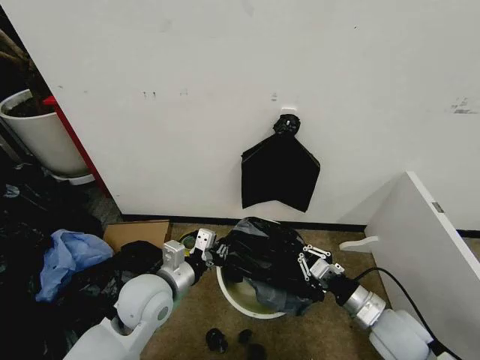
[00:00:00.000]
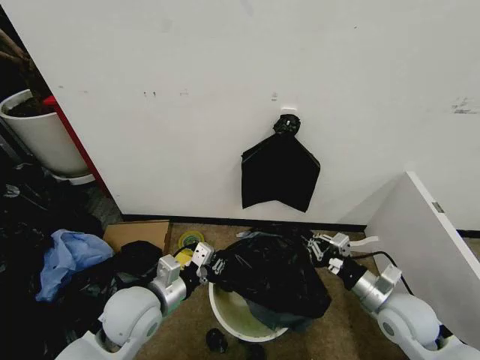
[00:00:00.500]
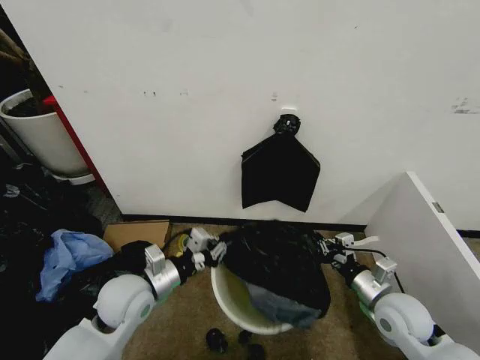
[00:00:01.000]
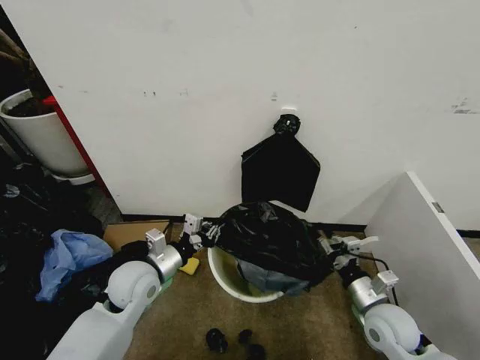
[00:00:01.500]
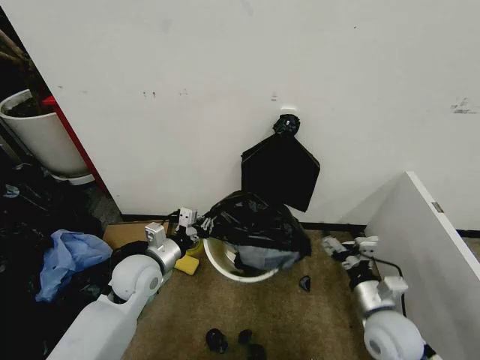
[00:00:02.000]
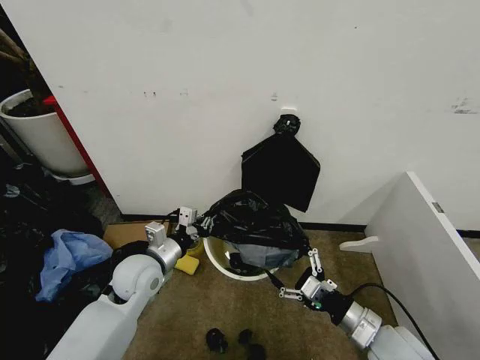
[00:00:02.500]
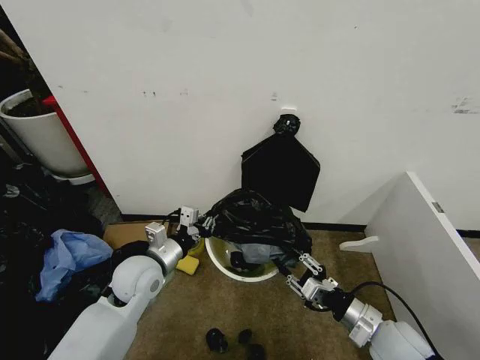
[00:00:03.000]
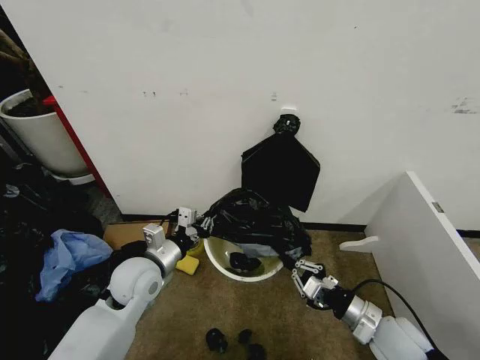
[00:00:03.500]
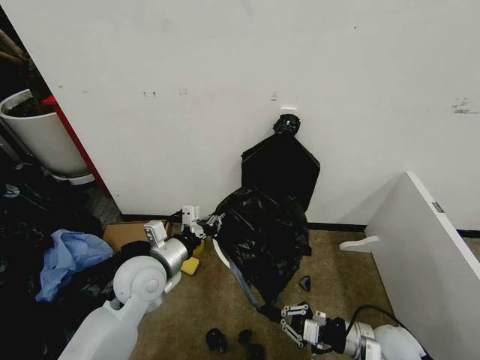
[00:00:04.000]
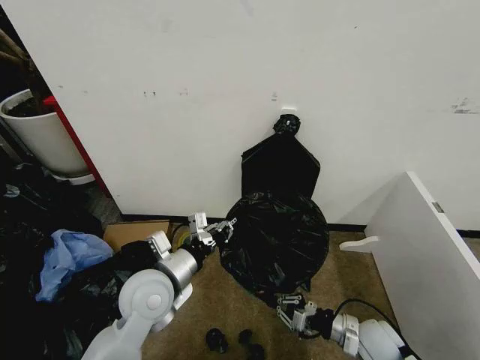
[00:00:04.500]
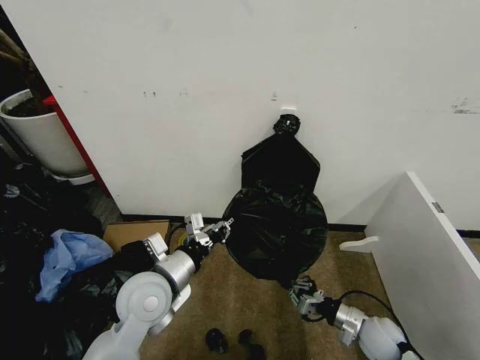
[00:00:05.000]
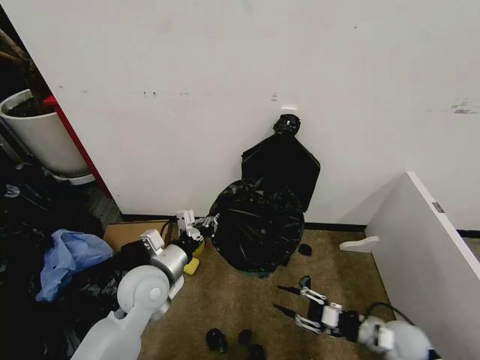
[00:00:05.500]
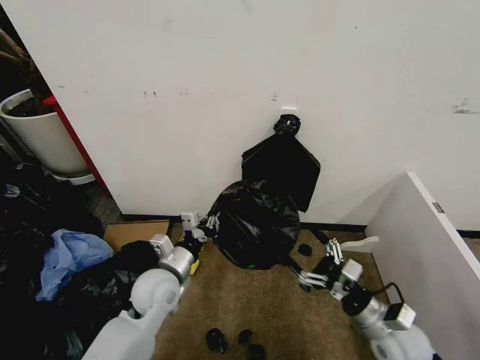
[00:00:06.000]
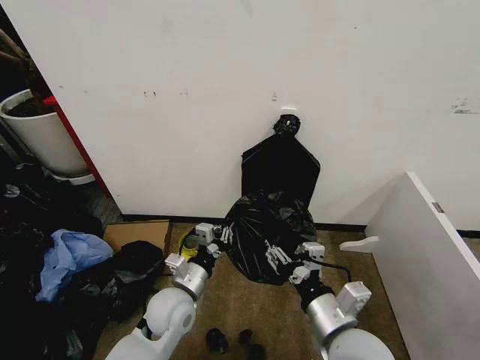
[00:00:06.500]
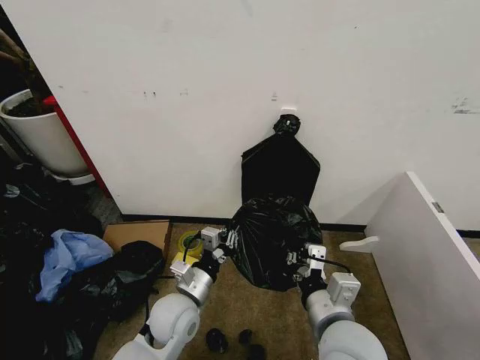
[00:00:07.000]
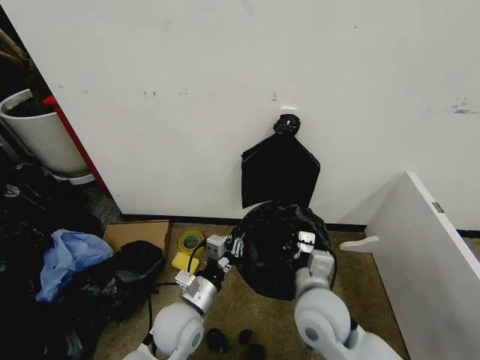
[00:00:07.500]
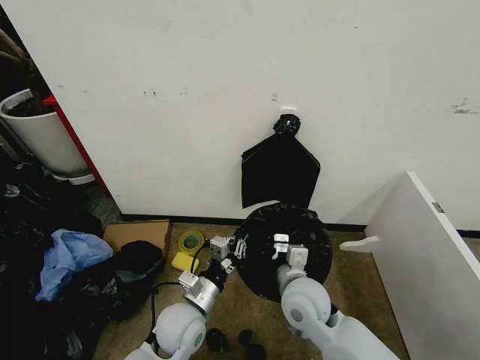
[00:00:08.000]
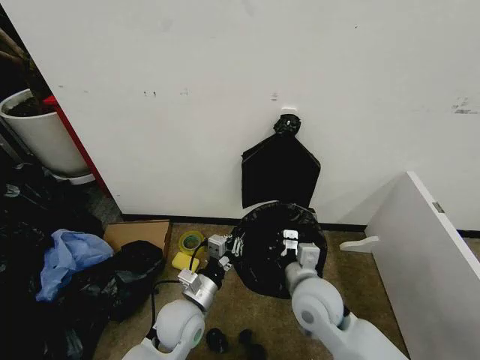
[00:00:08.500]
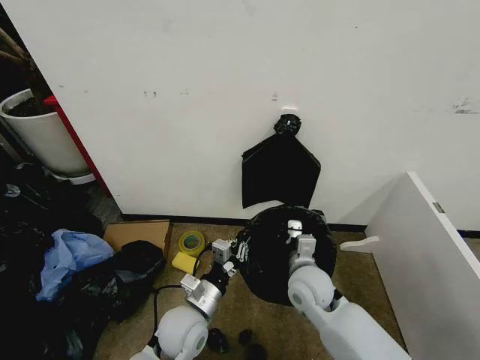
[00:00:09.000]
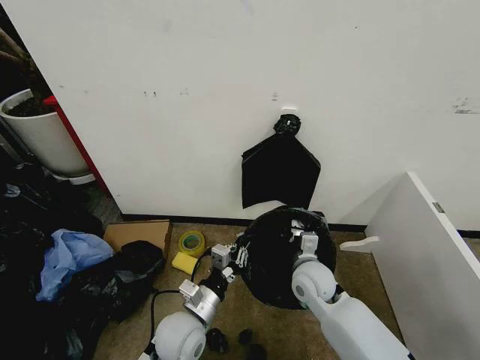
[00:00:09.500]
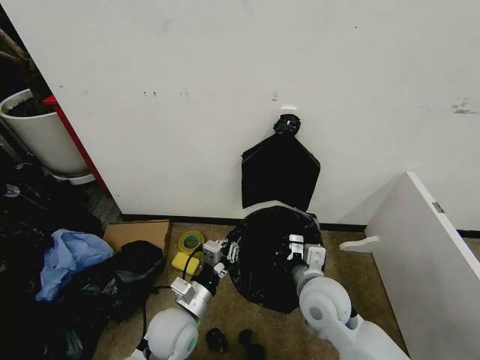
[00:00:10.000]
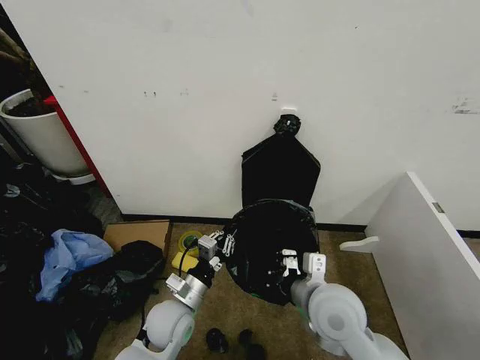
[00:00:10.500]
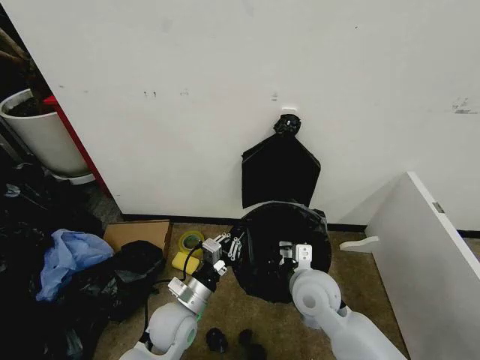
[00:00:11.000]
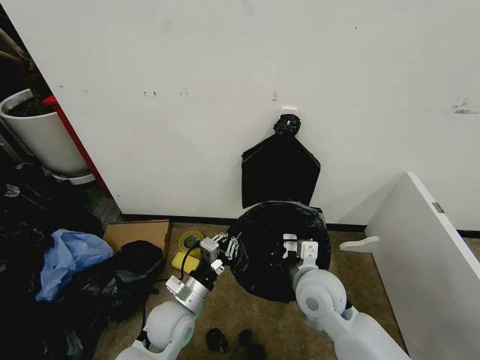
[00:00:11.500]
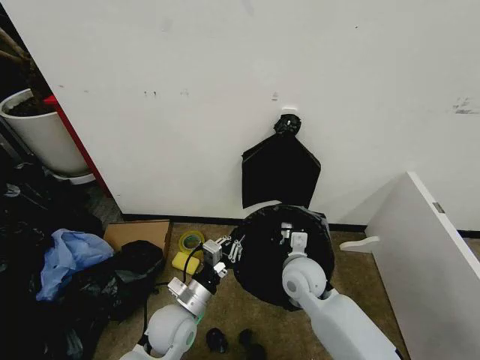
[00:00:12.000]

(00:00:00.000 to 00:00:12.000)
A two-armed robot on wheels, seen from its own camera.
Task of the whole recording: Place the garbage bag over the trash bin.
00:00:00.000 - 00:00:02.000: The right gripper opens up. Meanwhile the left gripper travels forward by approximately 5 cm.
00:00:02.000 - 00:00:04.000: The right gripper changes place by about 5 cm, and closes.
00:00:04.000 - 00:00:06.000: The left gripper moves downward, some 5 cm, while the right gripper opens its fingers.
00:00:06.000 - 00:00:08.000: The right gripper is displaced to the left by approximately 20 cm, and closes its fingers; the left gripper heads backward and to the right, covering approximately 10 cm.
00:00:10.000 - 00:00:12.000: The right gripper is displaced forward by approximately 5 cm.

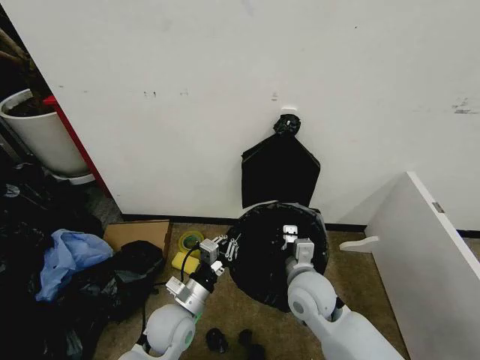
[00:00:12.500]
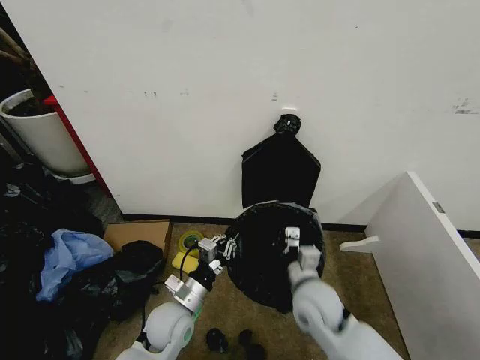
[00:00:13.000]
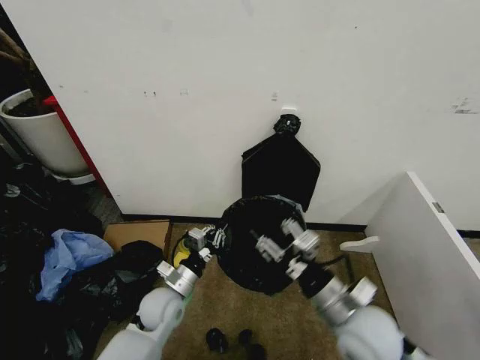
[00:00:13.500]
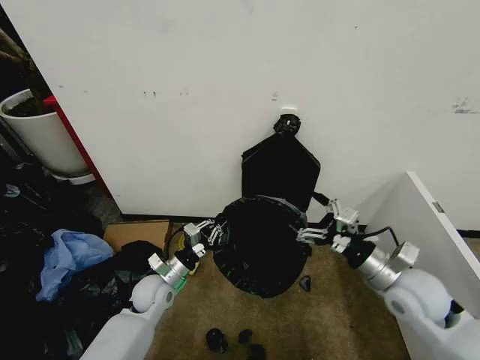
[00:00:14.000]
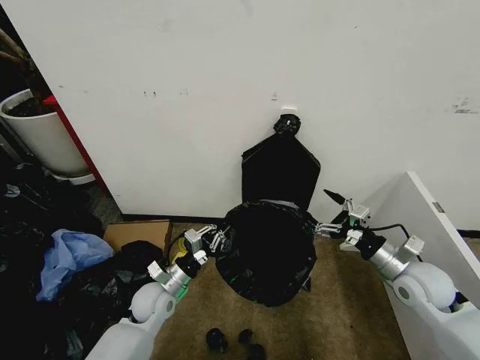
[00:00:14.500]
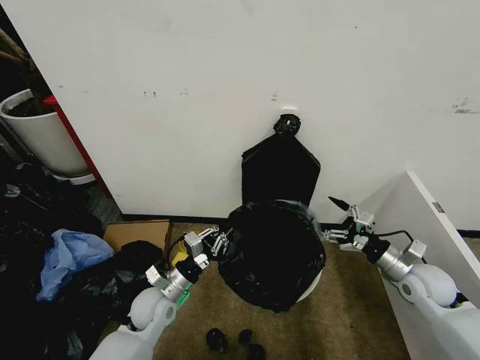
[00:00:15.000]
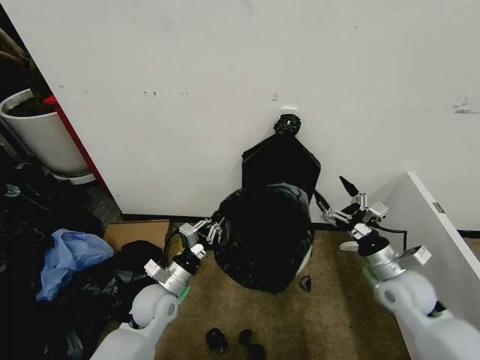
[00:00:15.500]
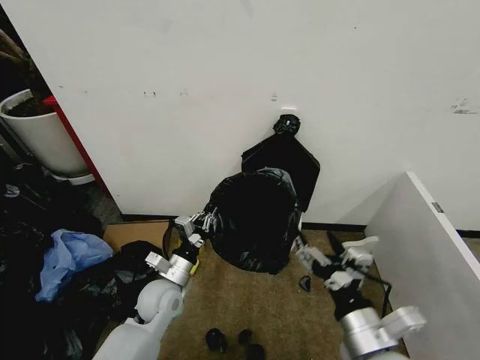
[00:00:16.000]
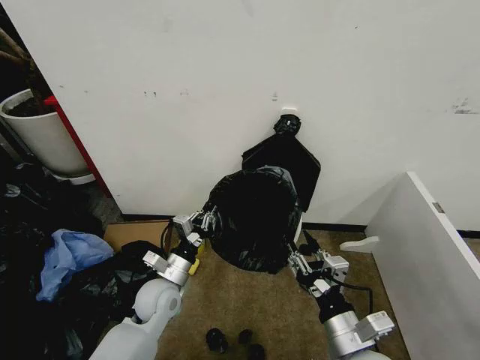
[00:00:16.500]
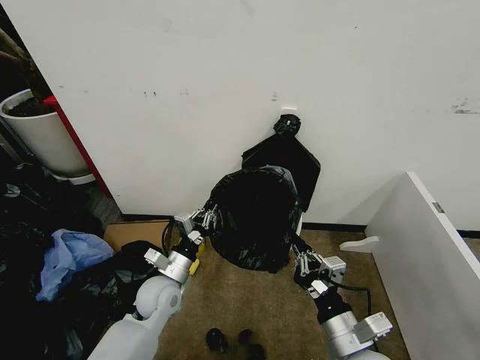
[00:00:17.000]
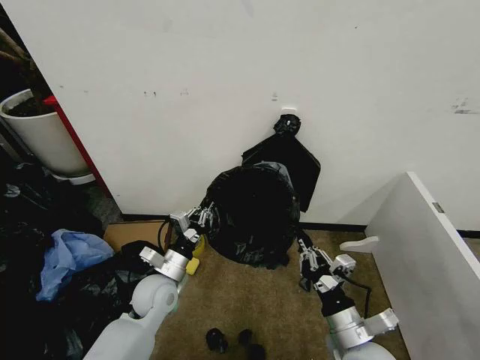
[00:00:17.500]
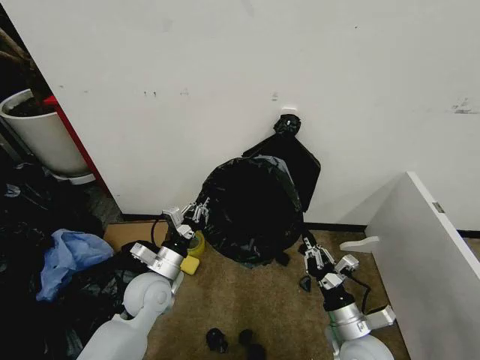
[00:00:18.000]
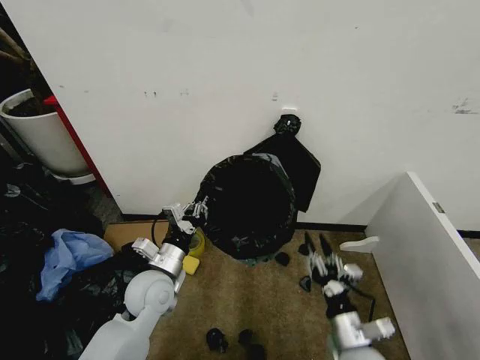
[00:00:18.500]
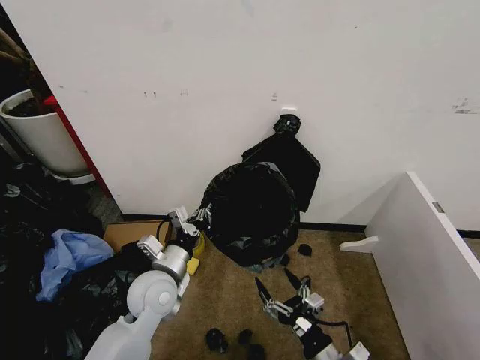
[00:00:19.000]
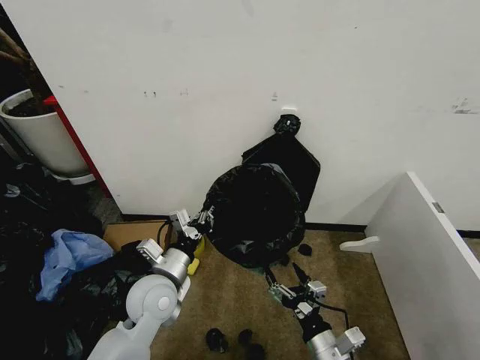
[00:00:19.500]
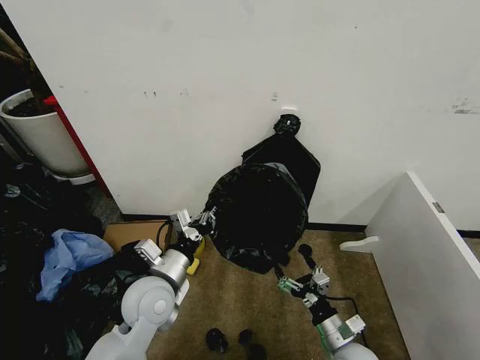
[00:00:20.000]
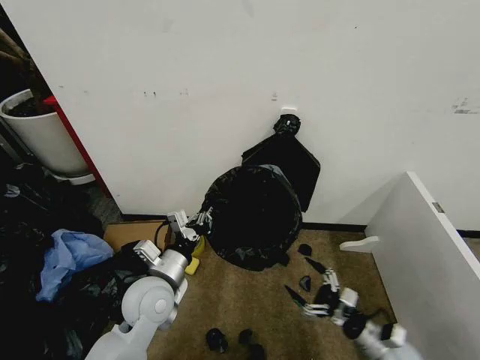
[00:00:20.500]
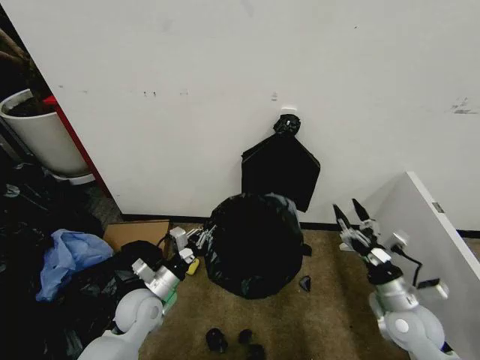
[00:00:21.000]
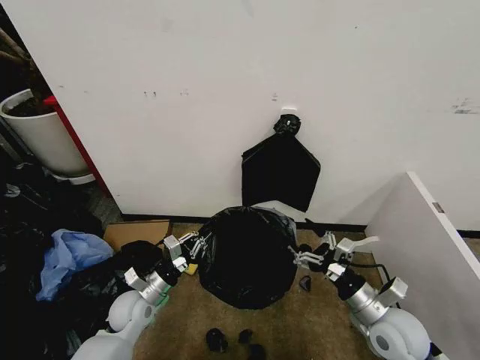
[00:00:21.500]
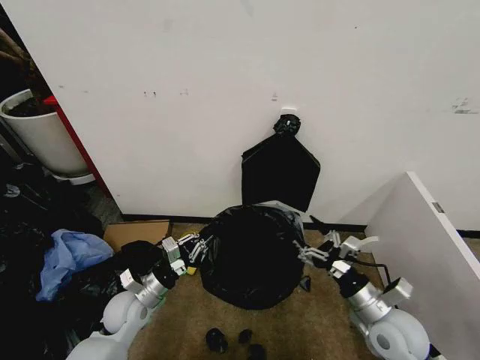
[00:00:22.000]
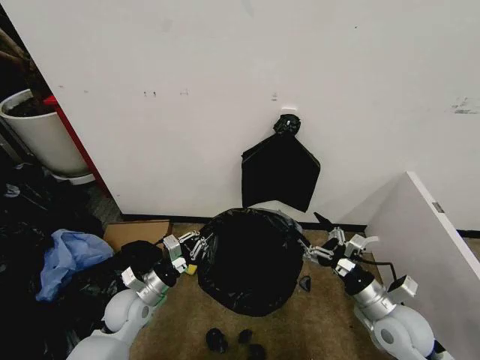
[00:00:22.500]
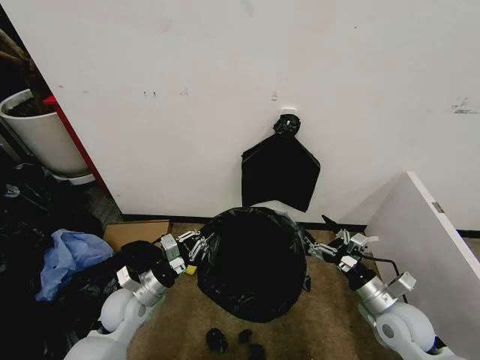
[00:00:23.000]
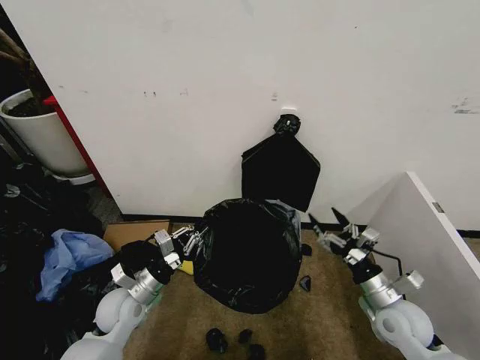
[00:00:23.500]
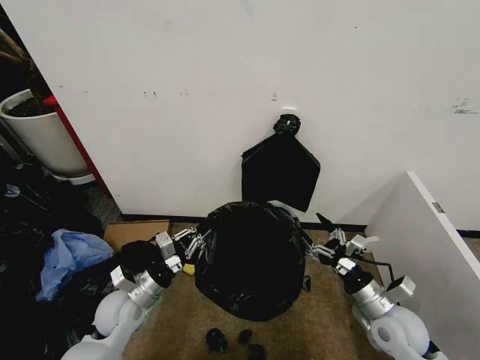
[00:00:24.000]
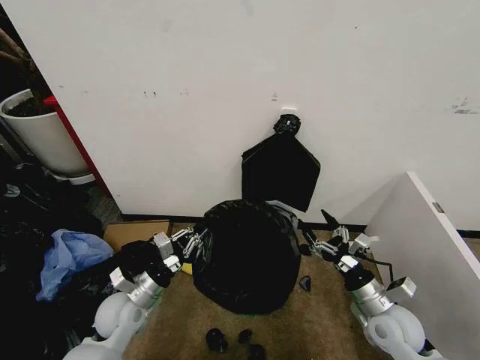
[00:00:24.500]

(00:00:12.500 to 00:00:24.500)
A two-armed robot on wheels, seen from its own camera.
Task of the whole recording: Place the garbage bag over the trash bin.
00:00:12.500 - 00:00:14.500: The right gripper is displaced to the right by some 25 cm, and opens, while the left gripper is displaced forward and to the left by roughly 10 cm.
00:00:14.500 - 00:00:16.500: The right gripper is displaced to the left and backward by about 25 cm, and closes its fingers.
00:00:16.500 - 00:00:18.500: The left gripper moves upward, about 5 cm. Meanwhile the right gripper is displaced downward by roughly 10 cm, and closes, then opens again.
00:00:18.500 - 00:00:20.500: The right gripper is displaced to the right and downward by some 10 cm, and opens.
00:00:20.500 - 00:00:22.500: The left gripper goes about 15 cm downward and to the left, while the right gripper goes roughly 15 cm upward.
00:00:22.500 - 00:00:24.500: The grippers make only small movements.

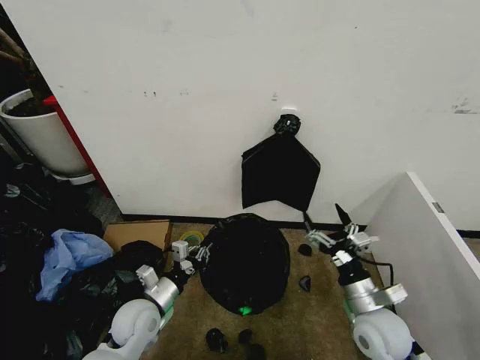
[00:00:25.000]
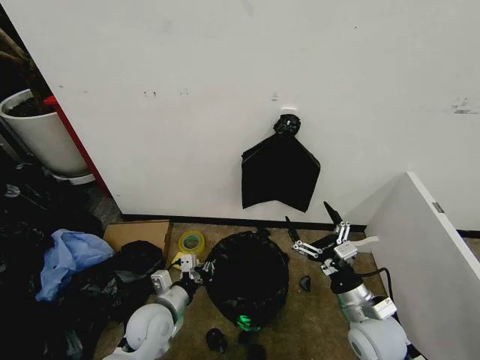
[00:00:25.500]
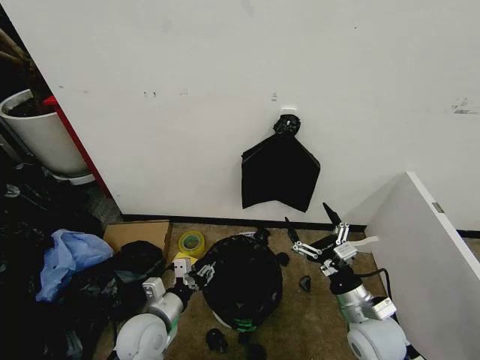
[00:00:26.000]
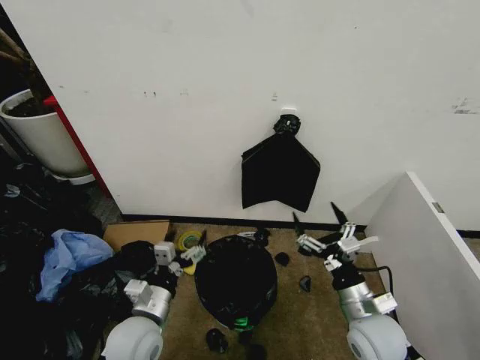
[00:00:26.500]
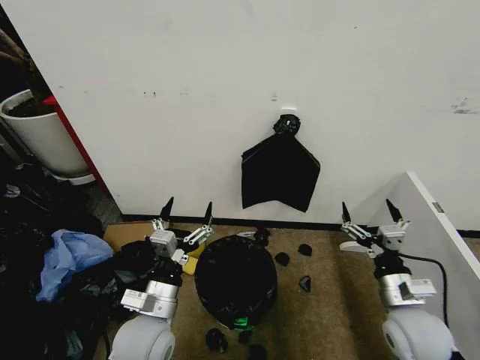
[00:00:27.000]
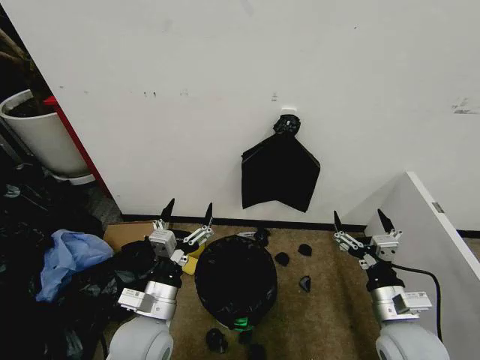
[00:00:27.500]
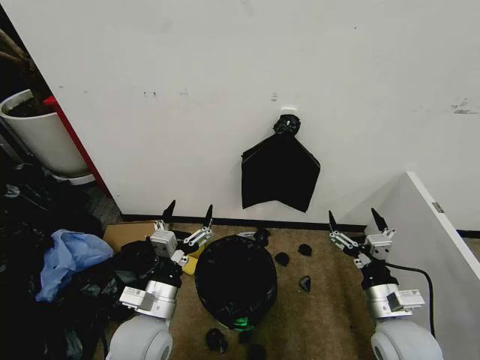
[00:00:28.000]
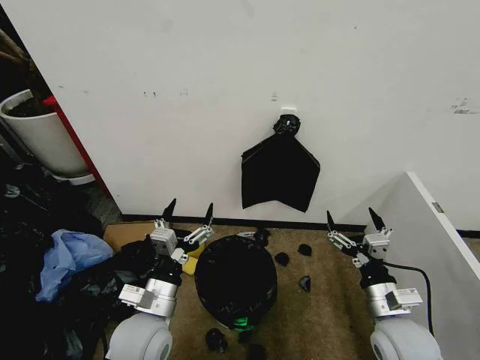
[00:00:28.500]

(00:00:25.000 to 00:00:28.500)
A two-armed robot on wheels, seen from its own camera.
Task of the whole recording: Place the garbage bag over the trash bin.
00:00:25.000 - 00:00:27.000: The left gripper heads upward, to the right and backward, covering about 10 cm, and opens, while the right gripper shifts by roughly 5 cm.
00:00:27.000 - 00:00:28.500: The grippers stay close to where they were, moving slightly.
